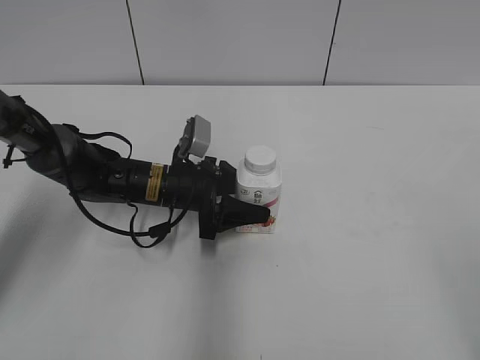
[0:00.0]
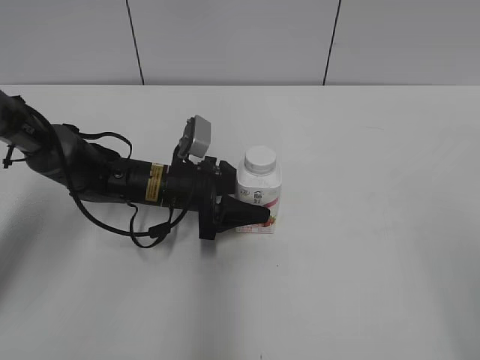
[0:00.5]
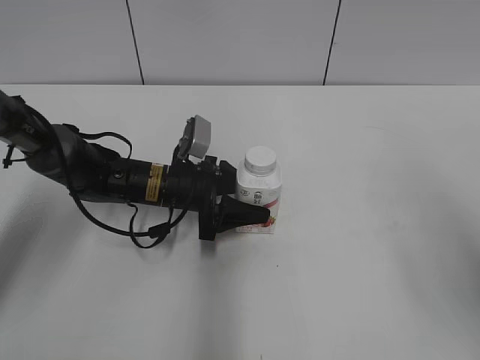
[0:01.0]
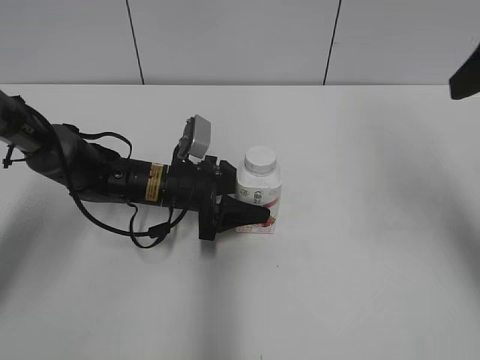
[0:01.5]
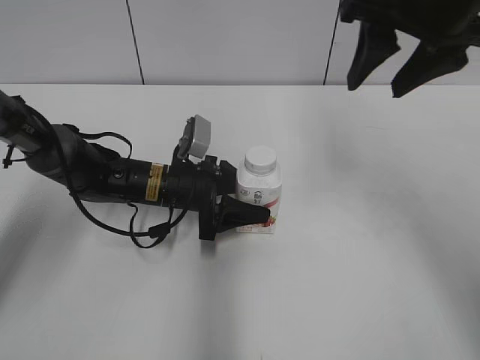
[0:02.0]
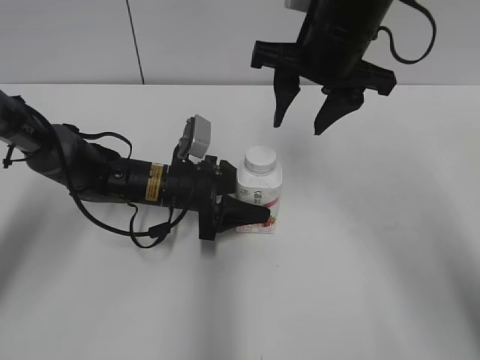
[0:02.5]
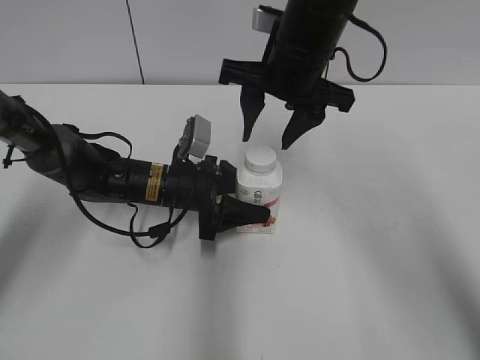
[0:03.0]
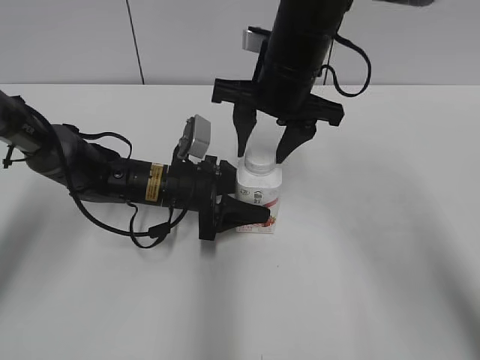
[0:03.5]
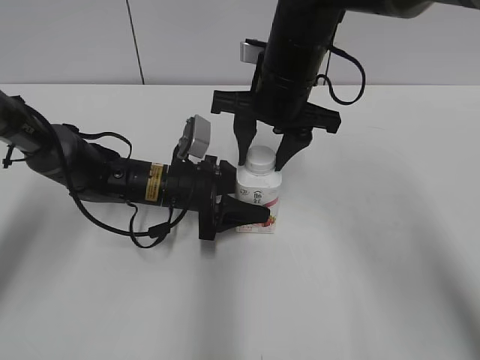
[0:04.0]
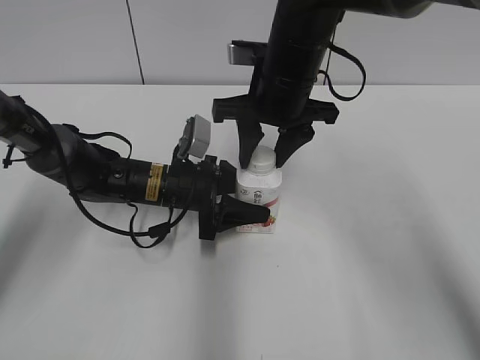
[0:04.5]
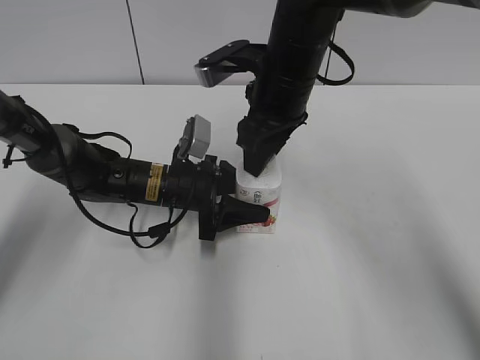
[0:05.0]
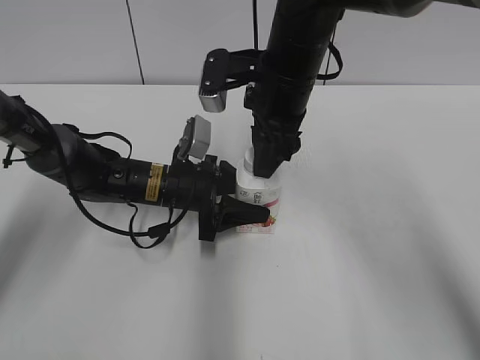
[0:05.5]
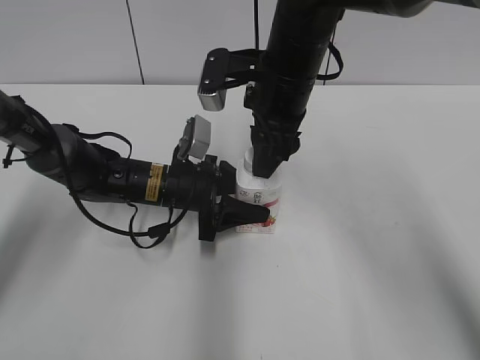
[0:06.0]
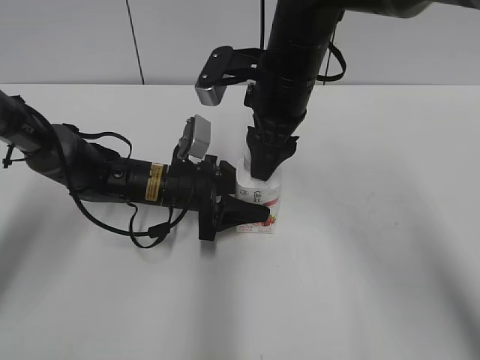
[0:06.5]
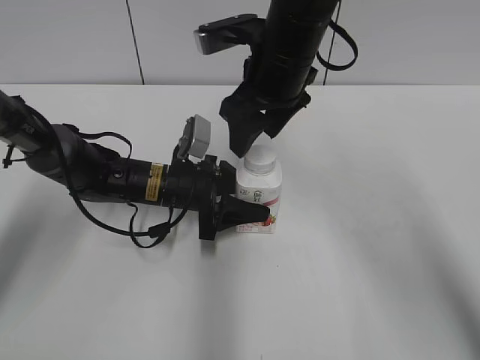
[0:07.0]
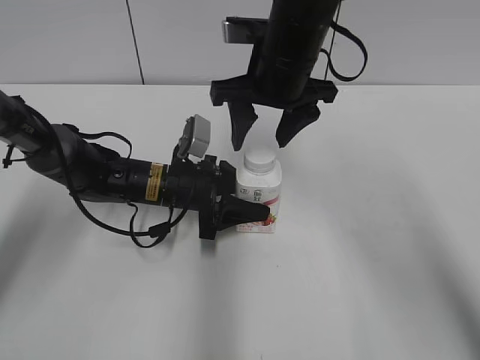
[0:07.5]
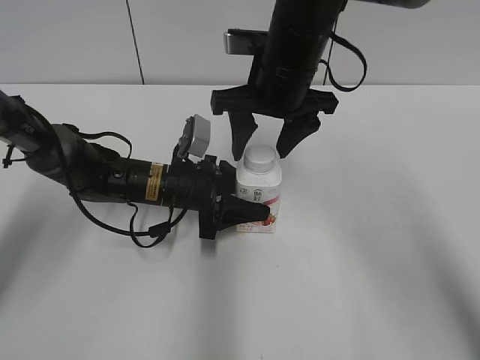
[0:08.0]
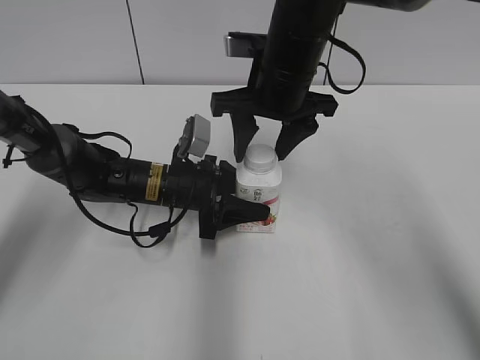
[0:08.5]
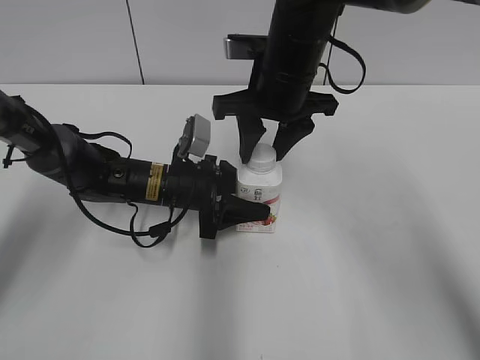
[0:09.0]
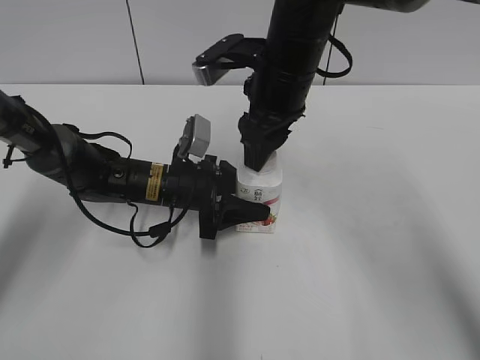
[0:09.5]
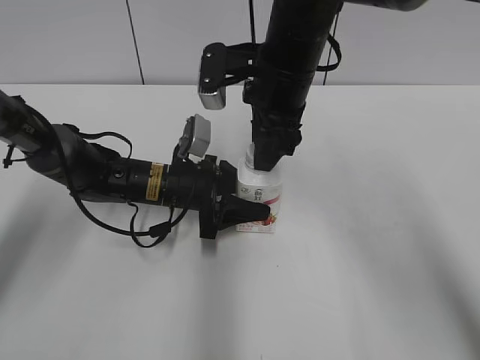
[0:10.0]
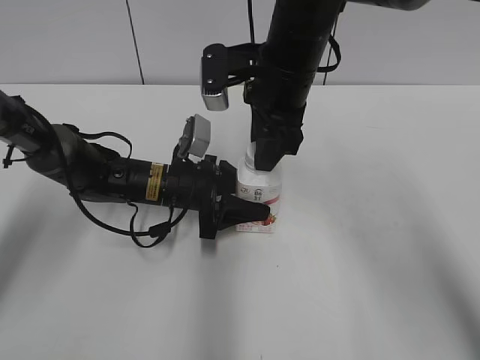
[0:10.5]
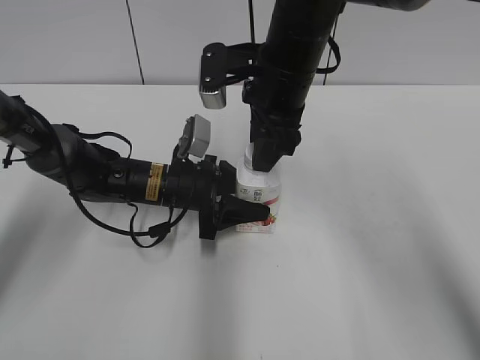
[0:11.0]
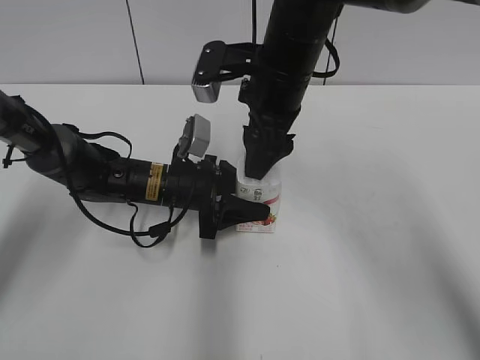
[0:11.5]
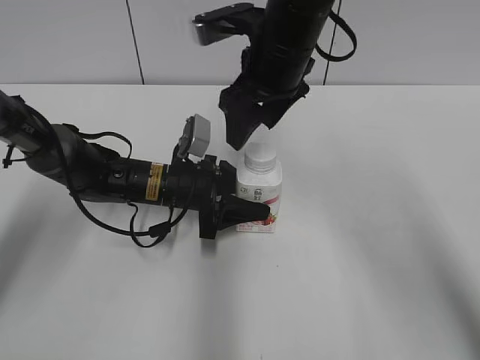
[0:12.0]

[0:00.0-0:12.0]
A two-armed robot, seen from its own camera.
0:00.0 to 0:02.0: The right gripper is displaced forward and to the left by some 35 cm, and closes.
0:02.0 to 0:04.0: The right gripper shifts some 15 cm downward and to the left.
0:06.0 to 0:08.0: The right gripper opens up.
0:08.0 to 0:10.0: The right gripper closes.
0:10.0 to 0:12.0: The right gripper opens its fingers.

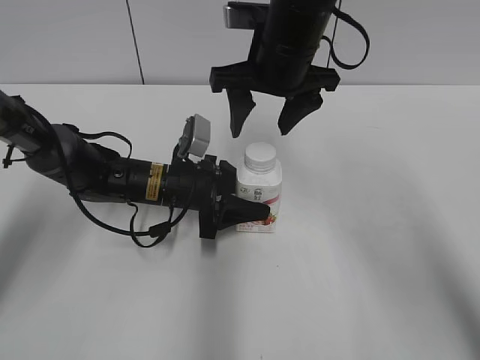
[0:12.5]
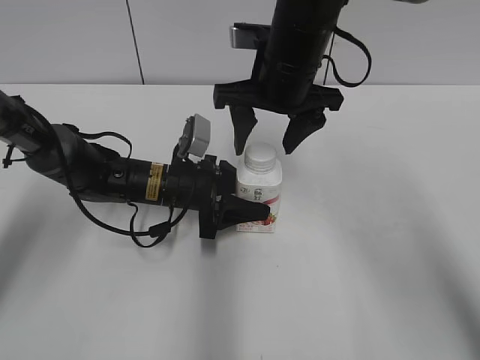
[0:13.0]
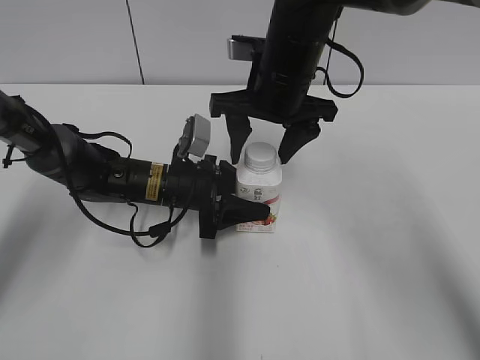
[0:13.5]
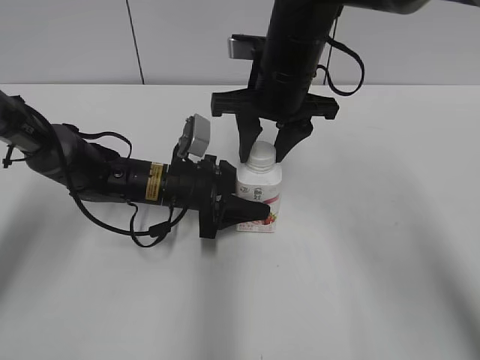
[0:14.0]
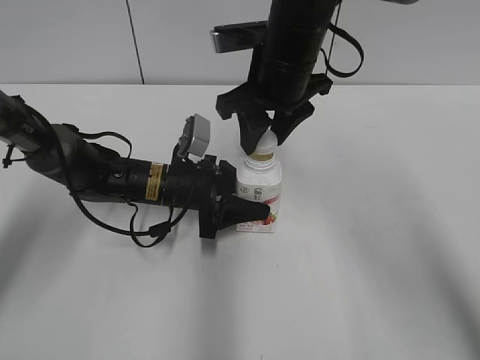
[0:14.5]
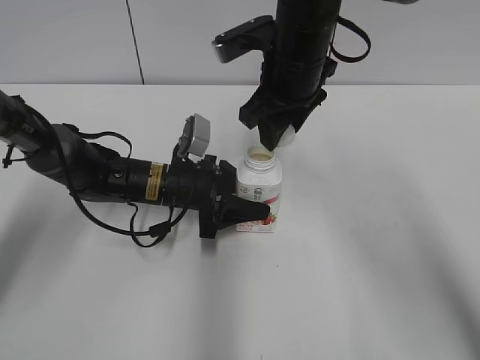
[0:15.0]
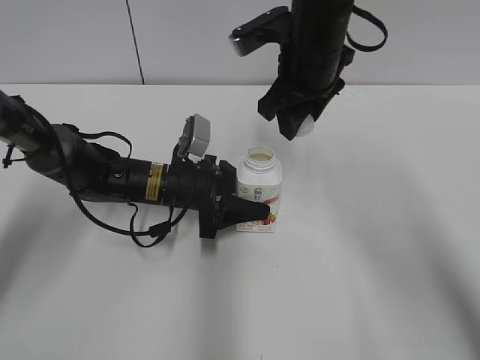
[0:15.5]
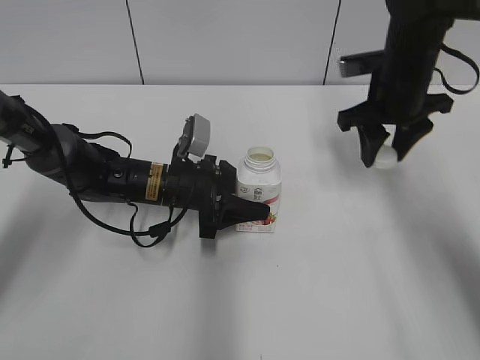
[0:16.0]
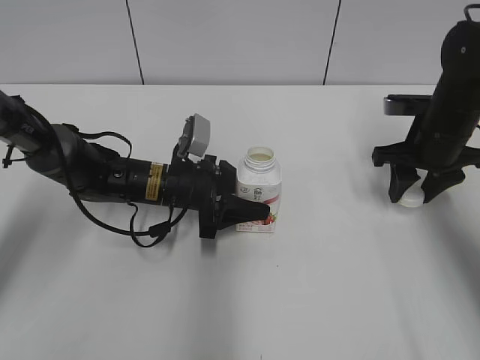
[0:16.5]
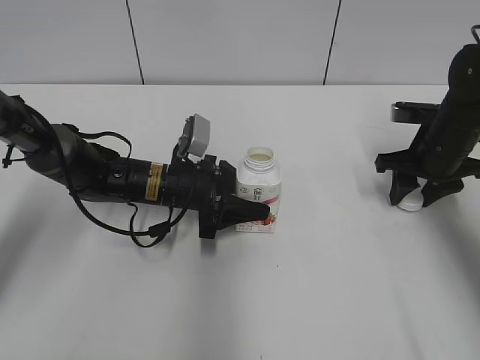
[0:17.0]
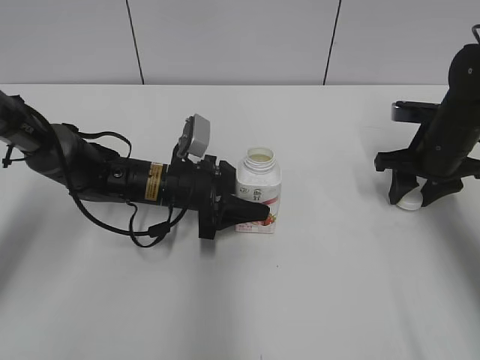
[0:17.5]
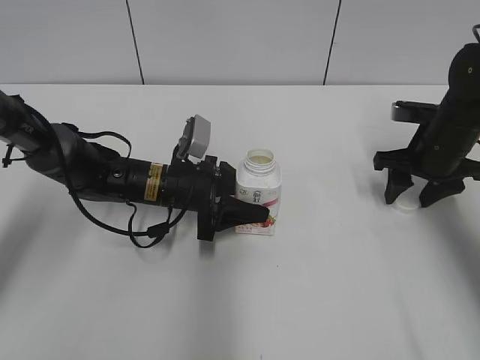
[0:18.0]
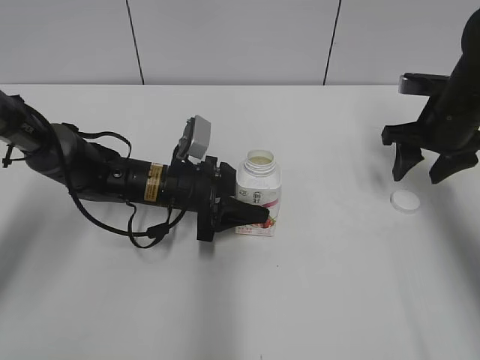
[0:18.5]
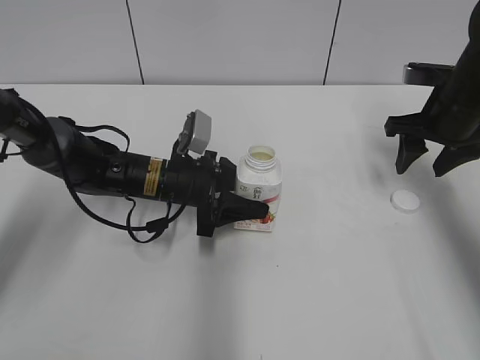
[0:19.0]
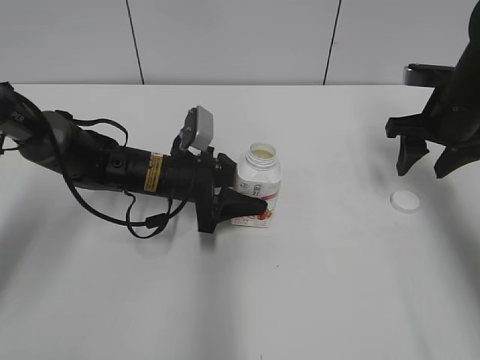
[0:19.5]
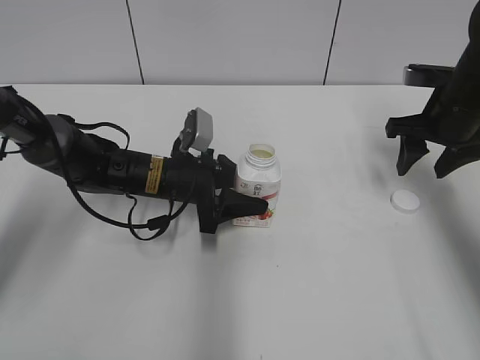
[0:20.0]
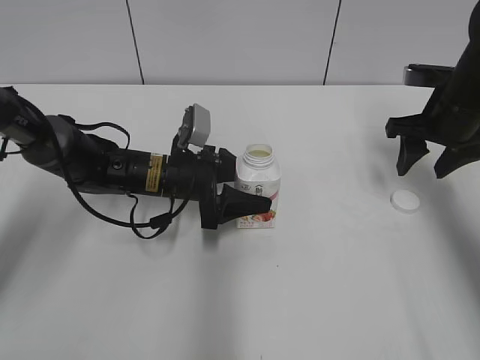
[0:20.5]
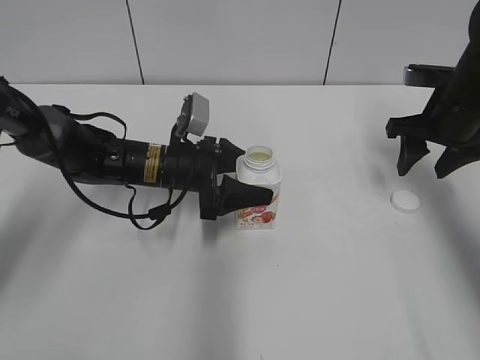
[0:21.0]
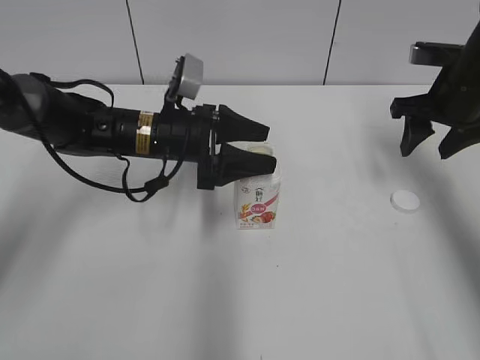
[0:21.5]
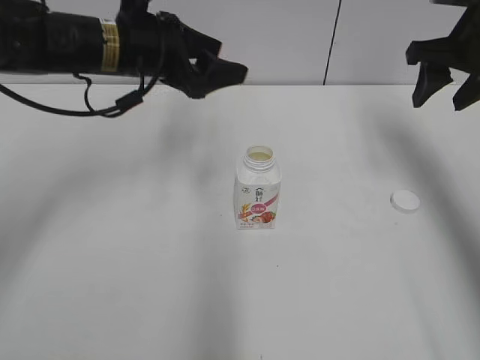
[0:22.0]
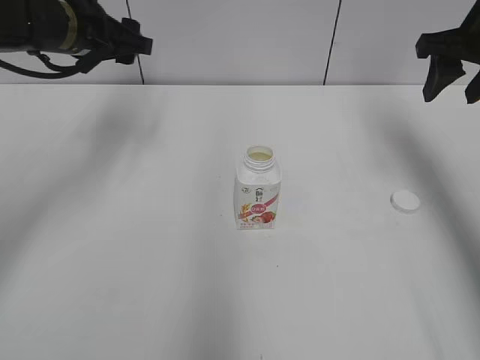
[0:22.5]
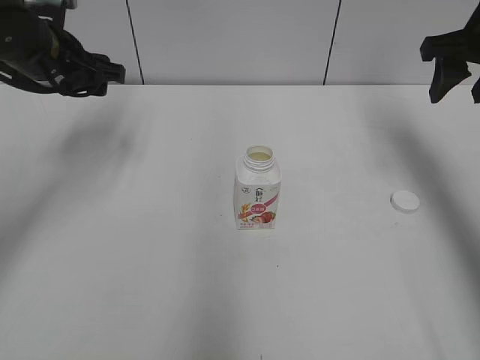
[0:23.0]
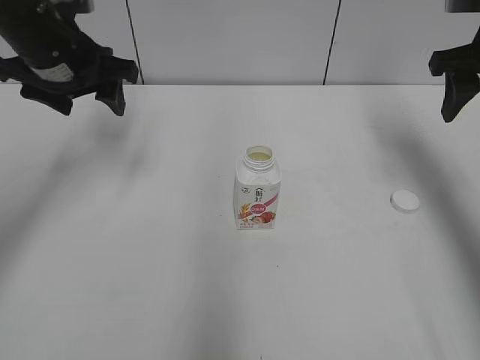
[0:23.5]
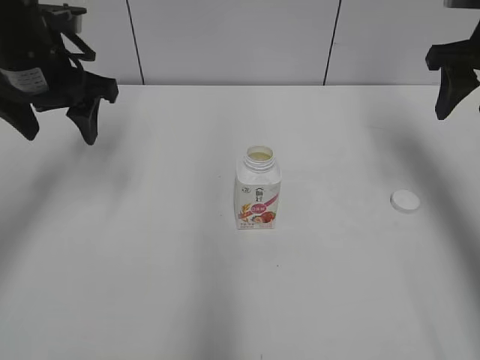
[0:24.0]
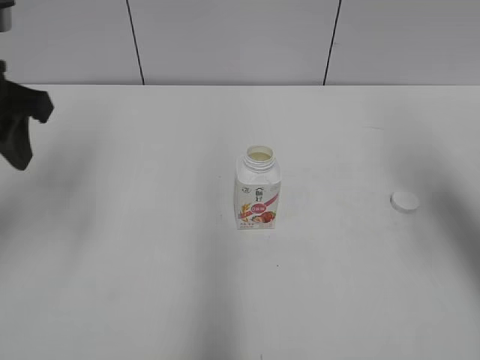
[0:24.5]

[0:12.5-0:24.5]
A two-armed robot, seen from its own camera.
Step, 0:15.0 to 0:18.0: Place the bottle cap on the right.
Step, 0:18.5 to 0:20.5: Place the Yili Changqing with the left hand.
0:12.5 to 0:14.5: The right gripper closes its fingers.
0:14.5 to 0:16.5: The right gripper moves to the right and downward, roughly 25 cm.
0:16.5 to 0:18.5: The right gripper opens up.
0:18.5 to 0:20.5: The grippers move only a little.
0:20.5 to 0:22.5: The right gripper goes about 10 cm upward. The left gripper is displaced upward and to the left by roughly 20 cm.
0:22.5 to 0:24.5: The two grippers go some 15 cm backward.

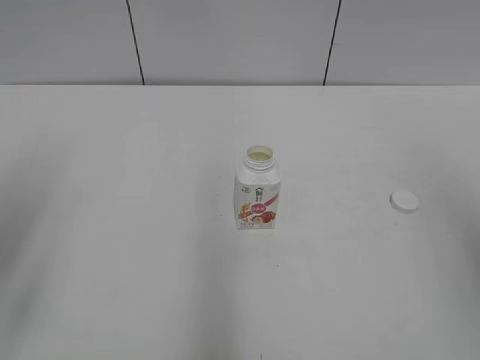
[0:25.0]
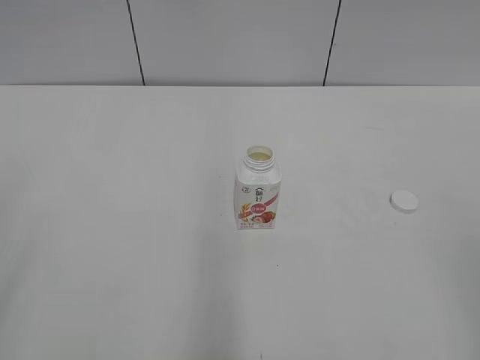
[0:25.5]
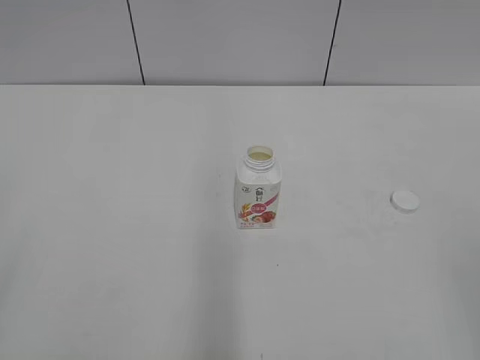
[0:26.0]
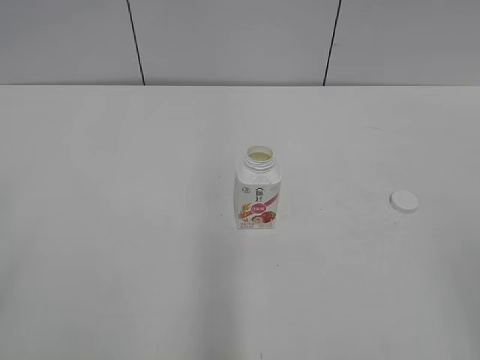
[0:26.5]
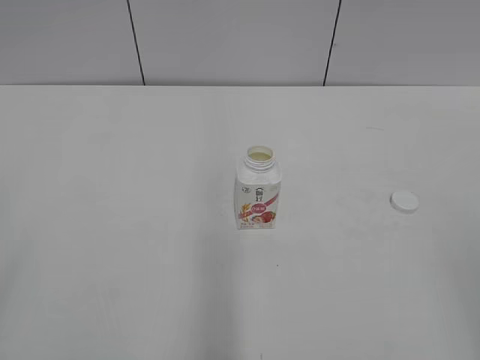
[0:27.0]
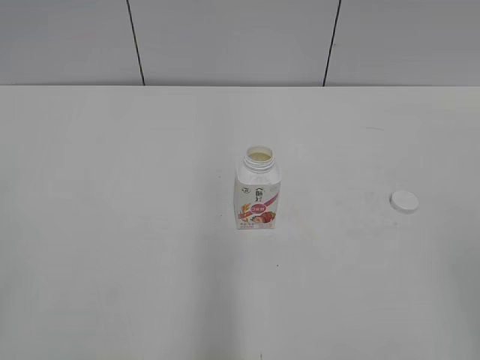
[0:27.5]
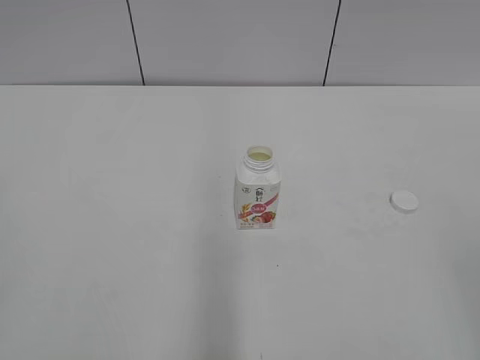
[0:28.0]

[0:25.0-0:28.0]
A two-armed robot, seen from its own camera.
0:25.0 to 0:26.5: The left gripper travels backward by roughly 15 cm.
